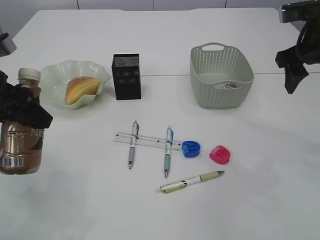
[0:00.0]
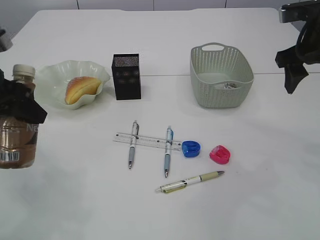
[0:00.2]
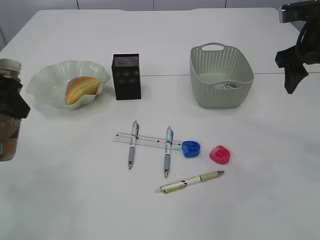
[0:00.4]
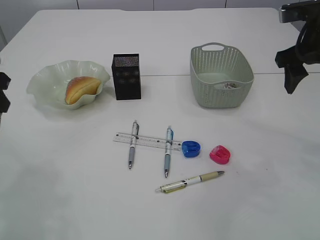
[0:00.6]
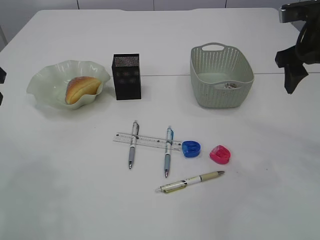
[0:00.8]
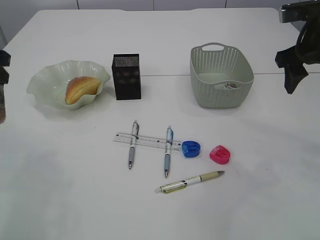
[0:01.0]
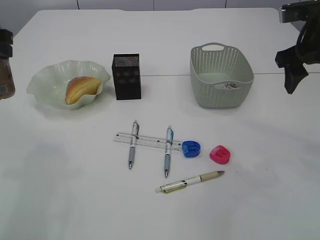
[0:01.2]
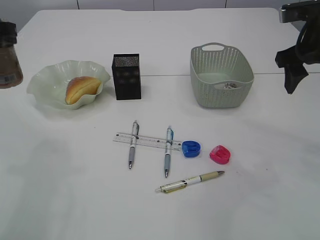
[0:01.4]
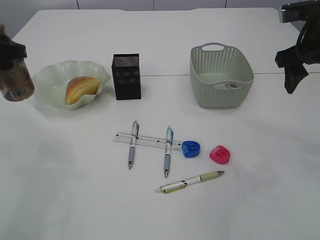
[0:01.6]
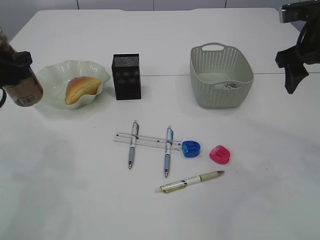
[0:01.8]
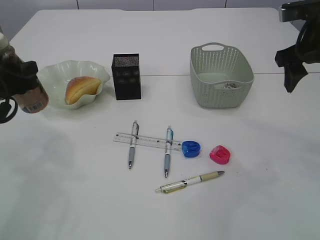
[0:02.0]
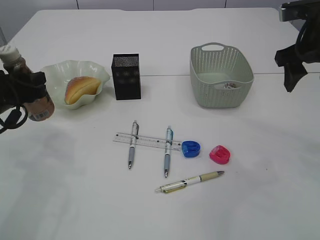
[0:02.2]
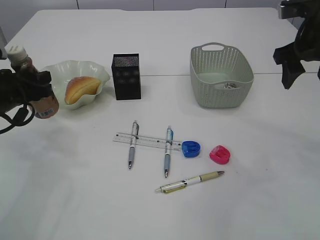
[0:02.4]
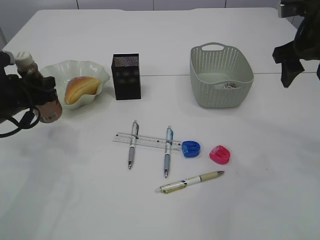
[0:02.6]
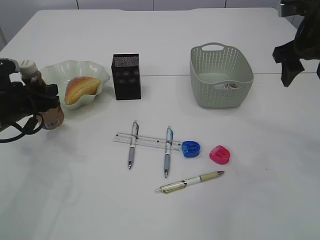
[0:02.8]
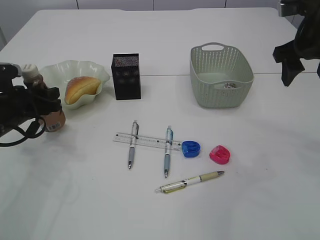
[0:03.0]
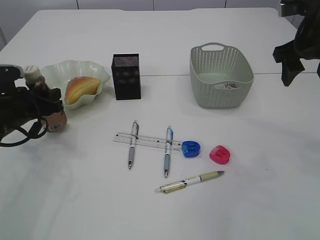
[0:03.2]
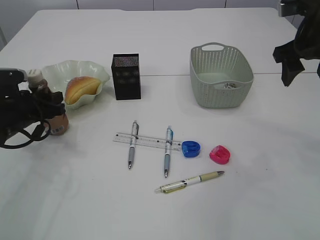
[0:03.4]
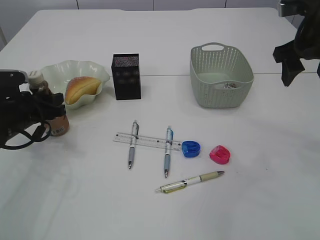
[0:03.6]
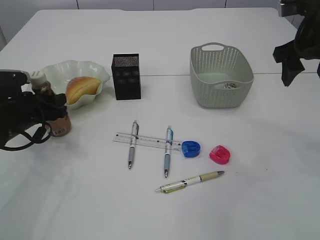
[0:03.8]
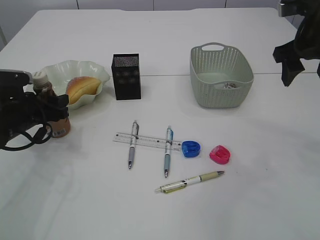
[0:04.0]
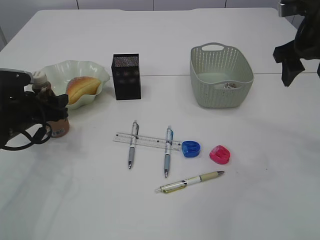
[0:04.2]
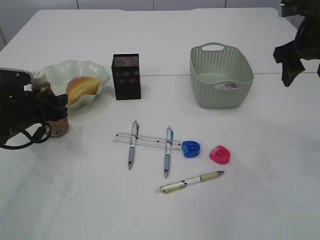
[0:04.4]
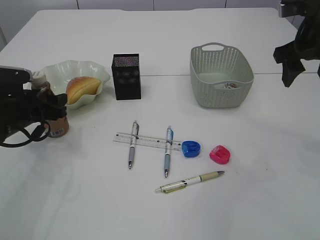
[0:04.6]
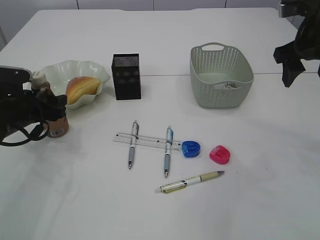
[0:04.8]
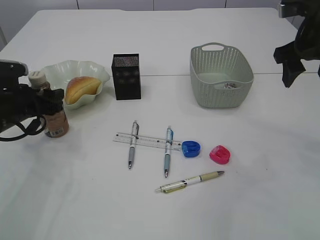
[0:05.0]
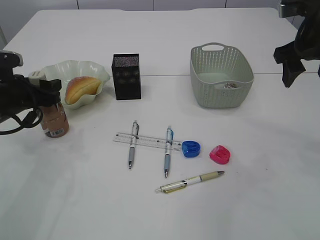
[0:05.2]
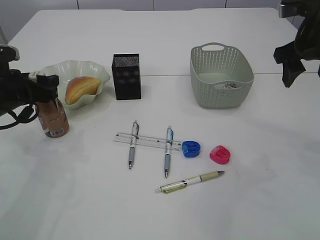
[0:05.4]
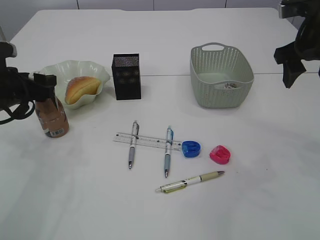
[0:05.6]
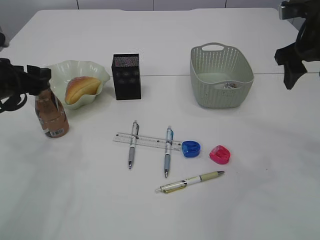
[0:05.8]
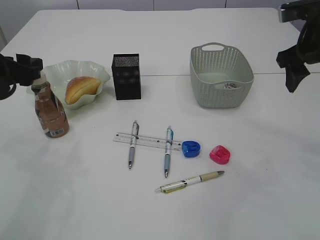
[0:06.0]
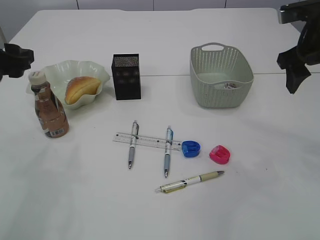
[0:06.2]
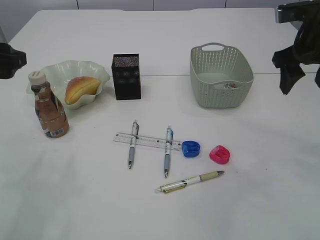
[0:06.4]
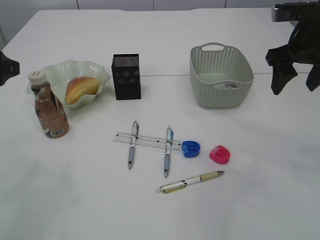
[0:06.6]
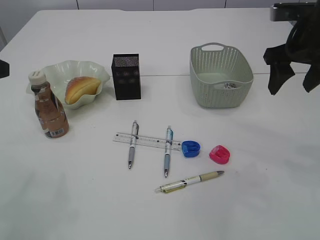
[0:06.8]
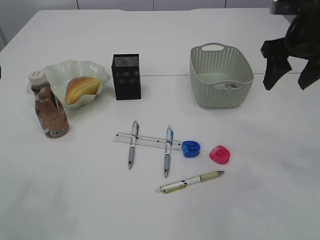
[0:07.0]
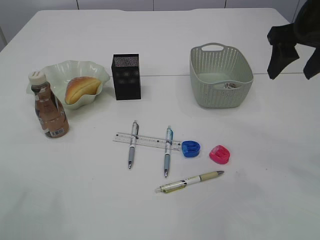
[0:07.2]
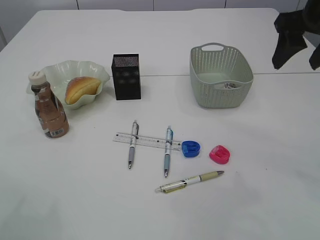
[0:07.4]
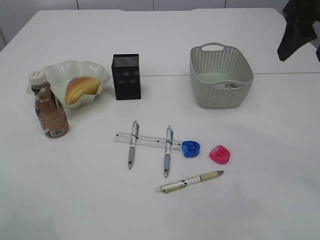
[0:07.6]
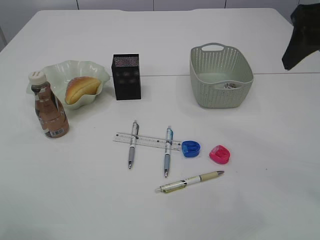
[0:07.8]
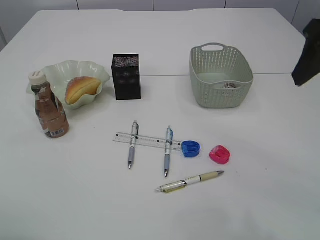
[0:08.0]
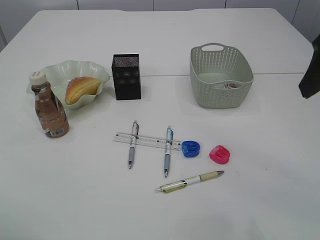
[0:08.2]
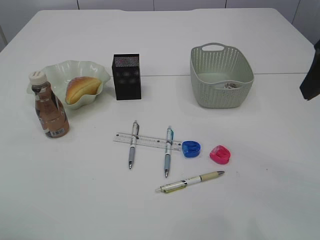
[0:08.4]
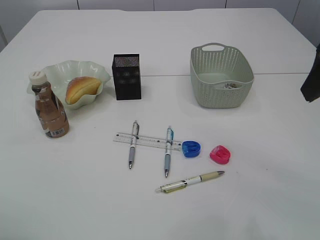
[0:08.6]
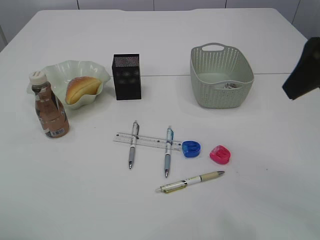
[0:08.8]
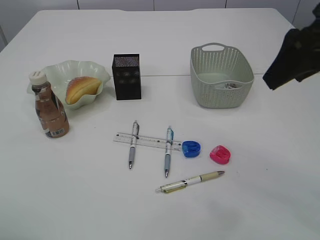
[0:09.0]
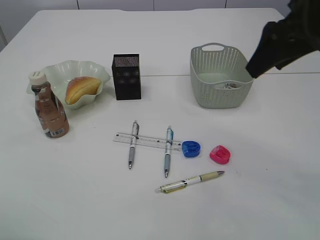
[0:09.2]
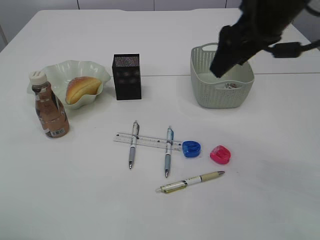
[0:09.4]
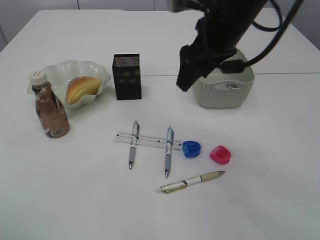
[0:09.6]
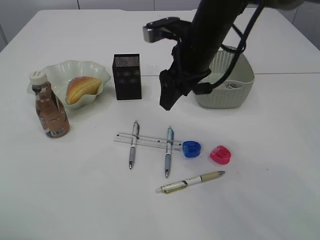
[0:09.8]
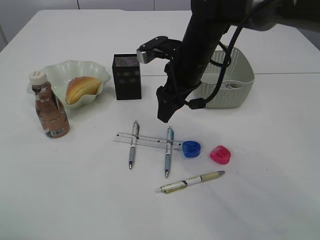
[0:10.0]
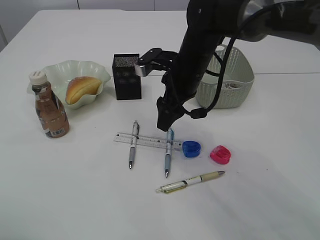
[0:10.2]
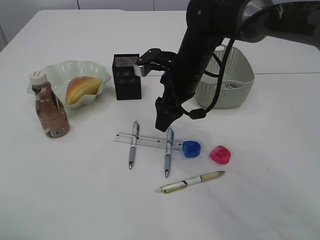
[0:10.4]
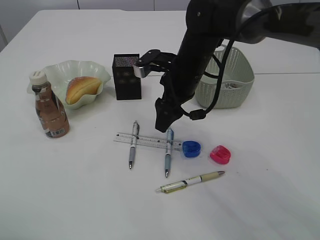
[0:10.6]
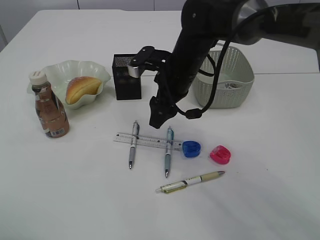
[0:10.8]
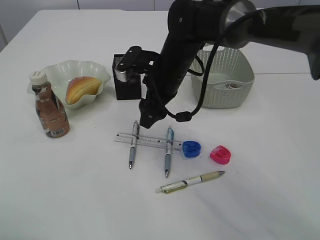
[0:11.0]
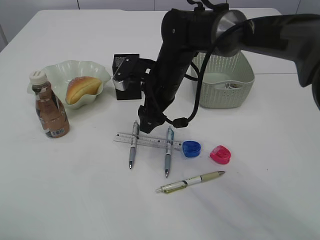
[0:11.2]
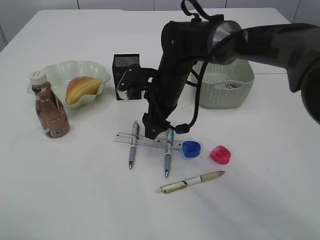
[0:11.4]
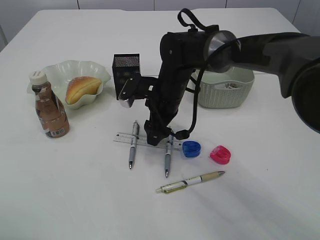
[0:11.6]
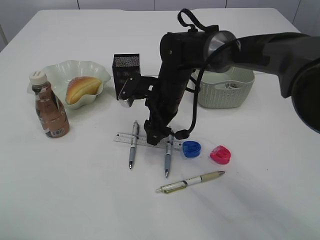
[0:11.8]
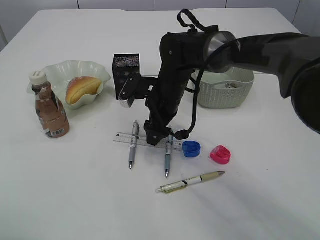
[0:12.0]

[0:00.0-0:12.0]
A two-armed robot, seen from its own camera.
Step, 0:00.0 to 0:06.2: Place the bottle.
0:01.6 to 0:03.0: The left gripper is displaced downward by roughly 15 cm.
0:03.0 to 0:04.4: The grippers make only small movements.
0:04.4 to 0:06.0: The left gripper travels upward by some 10 cm.
0:06.0 to 0:07.6: The right gripper travels upward by roughly 5 cm. The left gripper goes some 15 cm upward and backward.
0:07.6 to 0:09.0: The right gripper ends up some 5 cm from where it was.
0:09.0 to 0:10.4: The right gripper travels to the left, downward and forward by some 25 cm.
0:10.4 to 0:12.0: The right gripper goes some 5 cm downward.

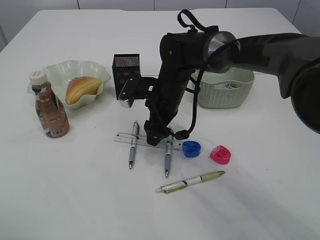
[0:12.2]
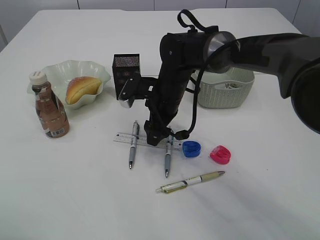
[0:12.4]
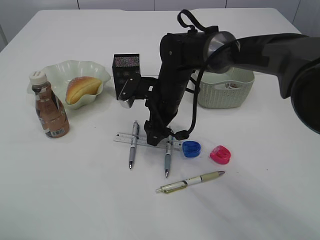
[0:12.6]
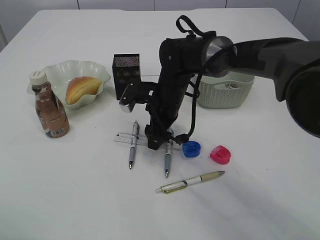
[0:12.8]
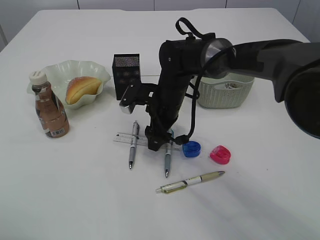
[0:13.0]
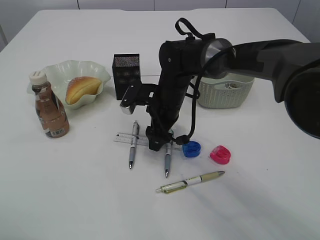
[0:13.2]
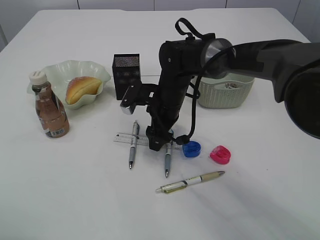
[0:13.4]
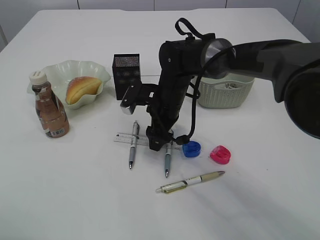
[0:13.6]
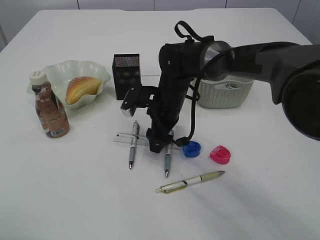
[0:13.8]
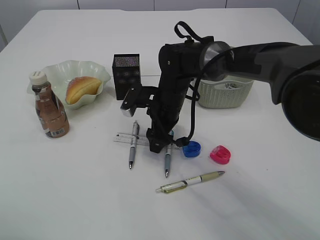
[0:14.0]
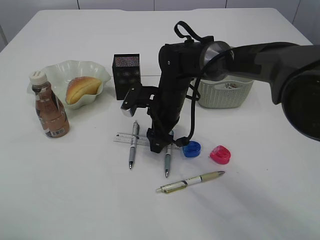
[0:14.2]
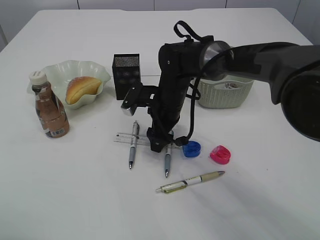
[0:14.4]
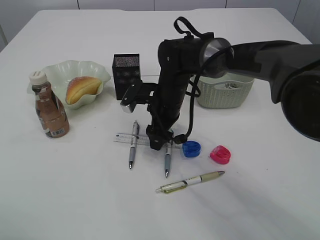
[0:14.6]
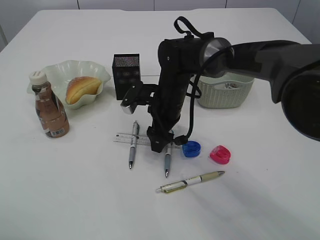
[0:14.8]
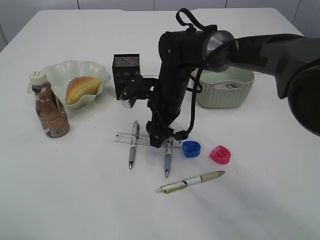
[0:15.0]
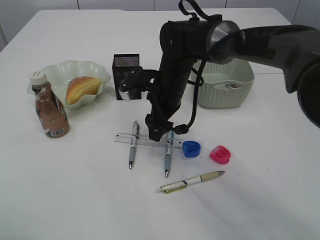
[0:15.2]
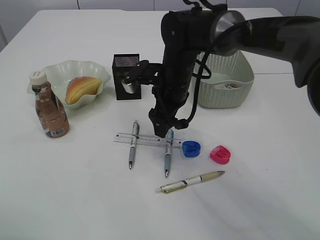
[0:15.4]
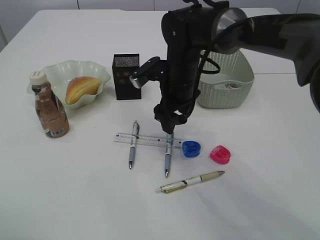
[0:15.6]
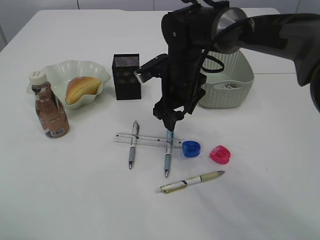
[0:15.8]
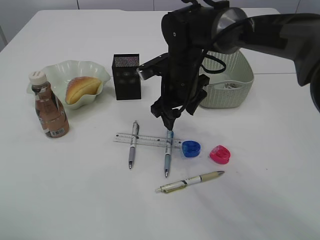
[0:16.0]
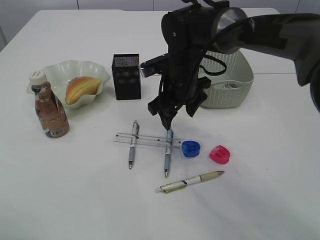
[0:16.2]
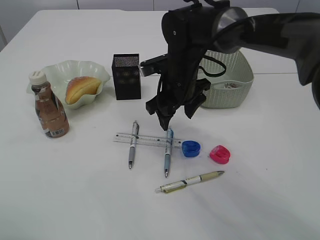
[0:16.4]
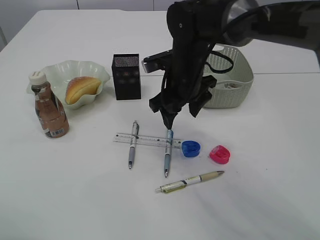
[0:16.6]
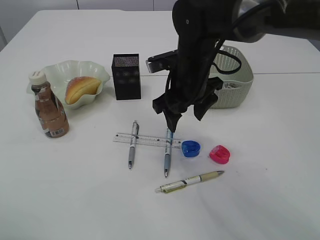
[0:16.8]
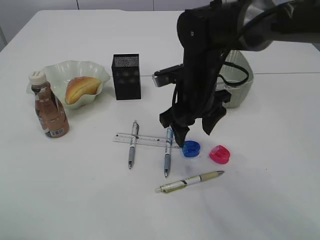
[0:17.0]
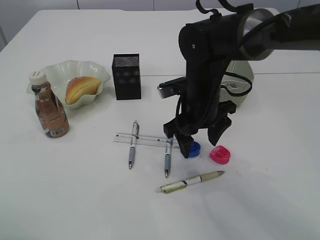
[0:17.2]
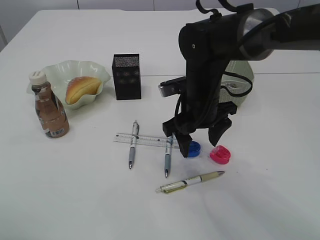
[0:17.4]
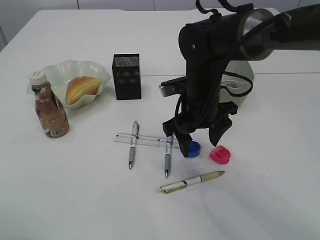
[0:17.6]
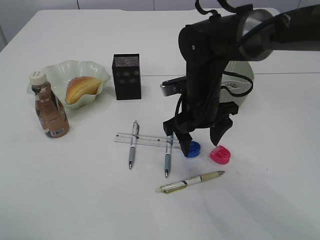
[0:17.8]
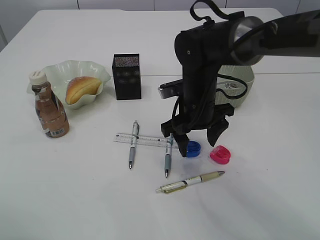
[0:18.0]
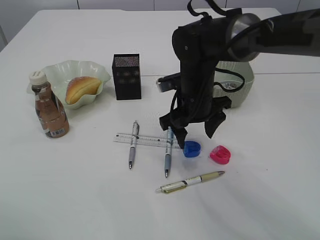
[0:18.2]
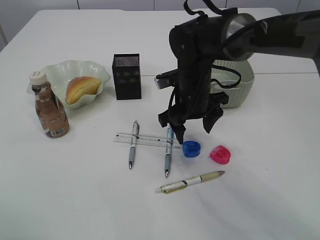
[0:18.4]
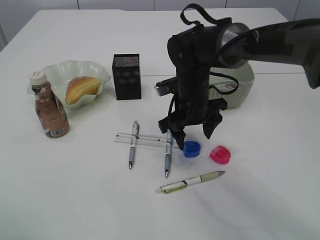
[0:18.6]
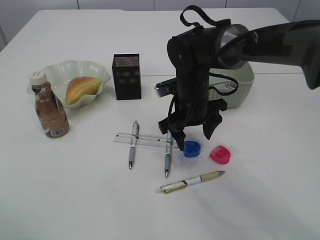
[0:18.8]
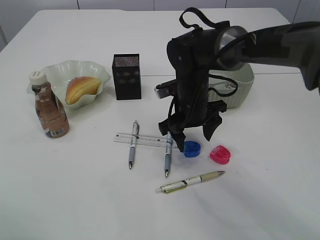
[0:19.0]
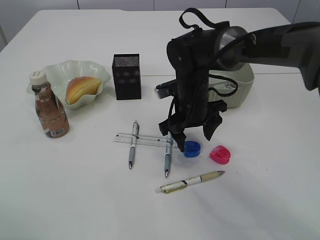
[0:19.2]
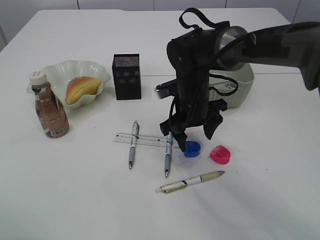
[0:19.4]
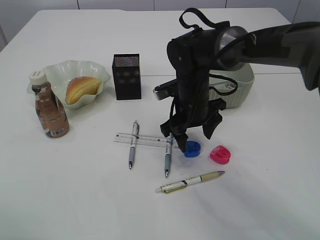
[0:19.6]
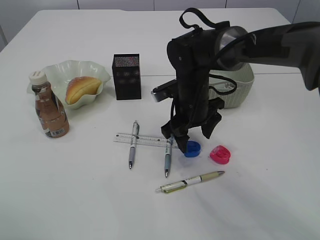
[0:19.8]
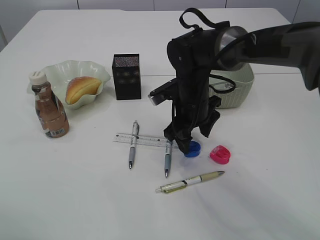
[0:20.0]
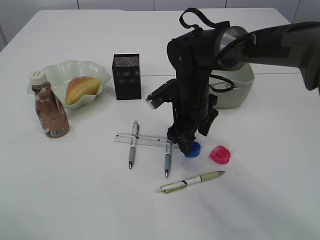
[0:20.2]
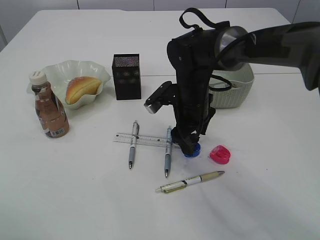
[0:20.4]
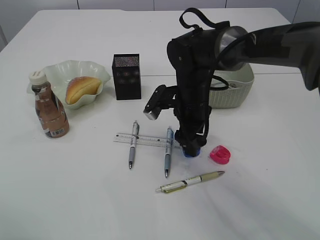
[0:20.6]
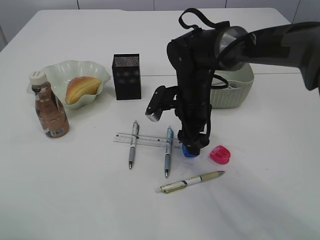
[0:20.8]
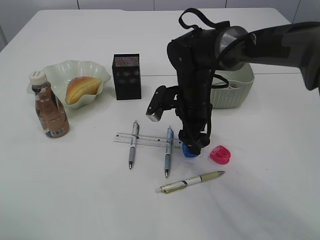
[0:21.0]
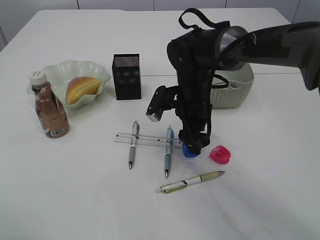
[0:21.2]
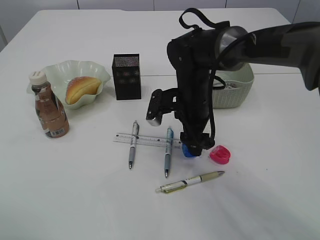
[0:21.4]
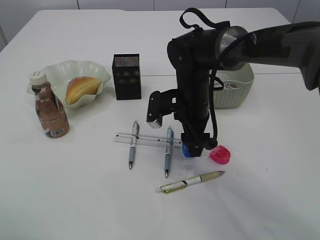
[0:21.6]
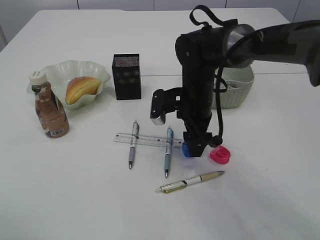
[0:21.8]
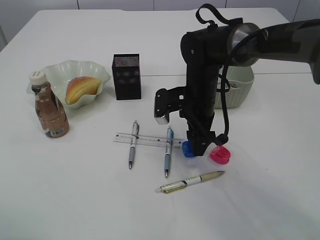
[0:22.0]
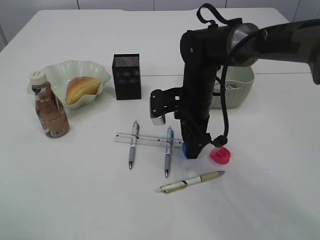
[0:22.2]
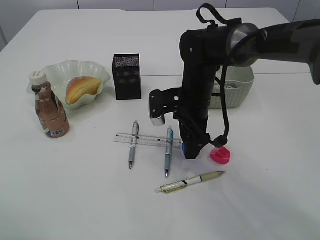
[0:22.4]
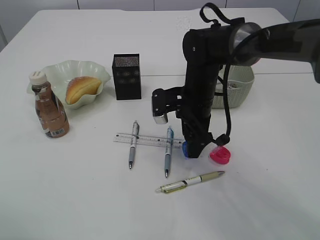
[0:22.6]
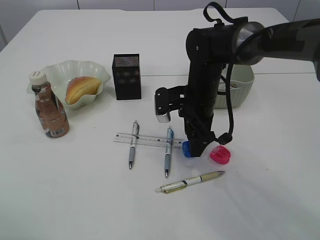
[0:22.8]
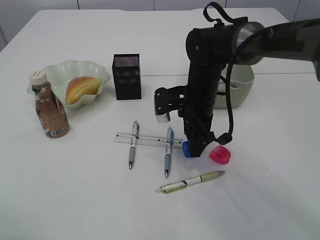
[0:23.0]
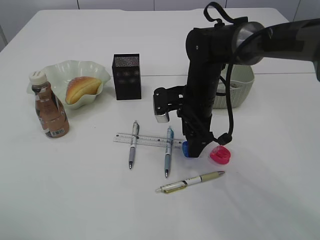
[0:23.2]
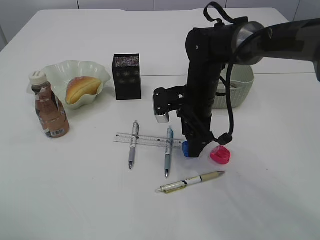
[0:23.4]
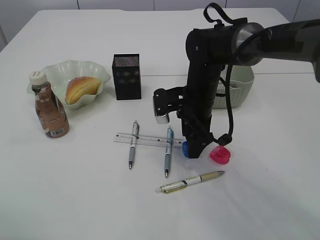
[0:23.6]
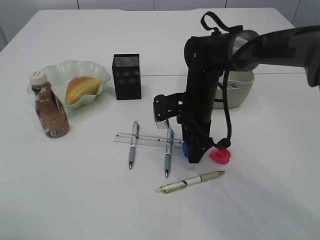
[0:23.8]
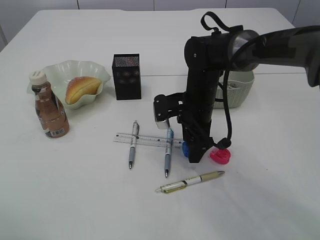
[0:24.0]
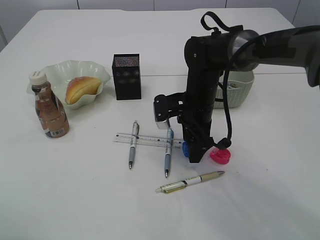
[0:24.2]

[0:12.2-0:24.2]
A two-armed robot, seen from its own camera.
0:12.2 to 0:15.2: There are only small adjustments of the grippers.
0:16.6 to 0:19.8: The grippers stay close to where they were, moving slightly.
0:22.6 to 0:24.2: There are only small adjustments of the grippers.
